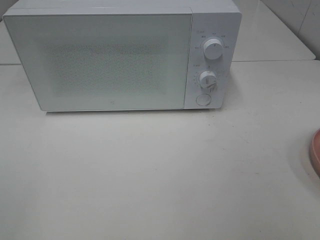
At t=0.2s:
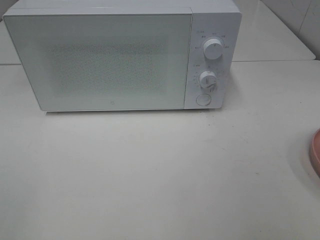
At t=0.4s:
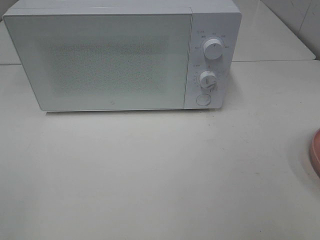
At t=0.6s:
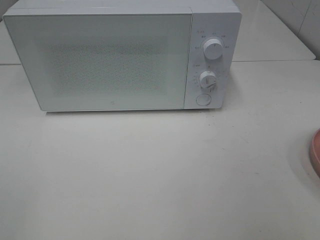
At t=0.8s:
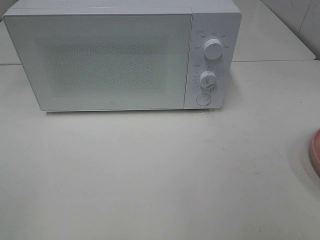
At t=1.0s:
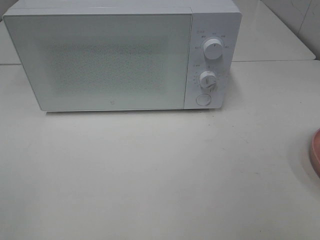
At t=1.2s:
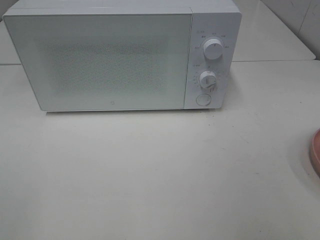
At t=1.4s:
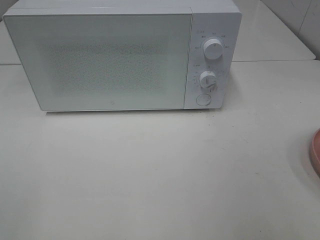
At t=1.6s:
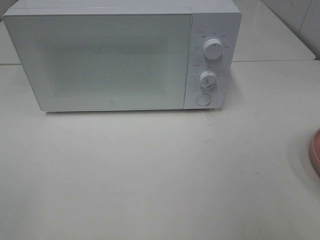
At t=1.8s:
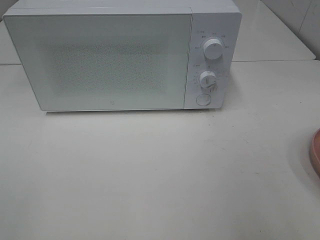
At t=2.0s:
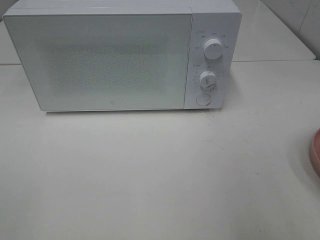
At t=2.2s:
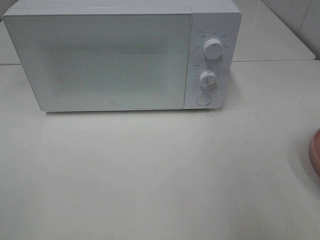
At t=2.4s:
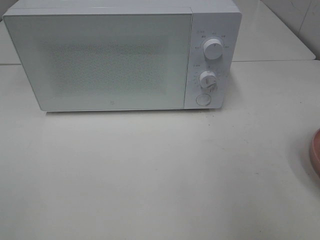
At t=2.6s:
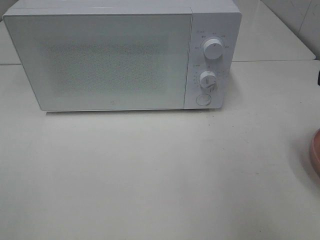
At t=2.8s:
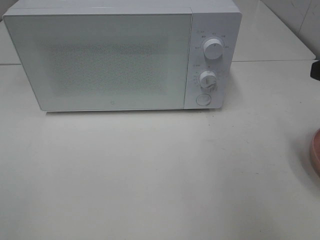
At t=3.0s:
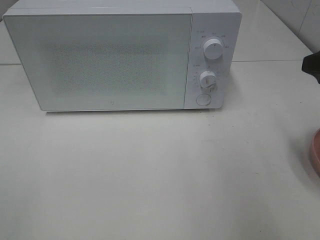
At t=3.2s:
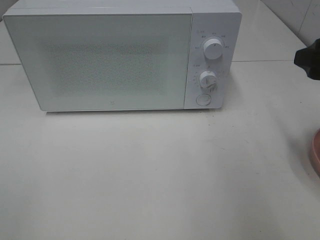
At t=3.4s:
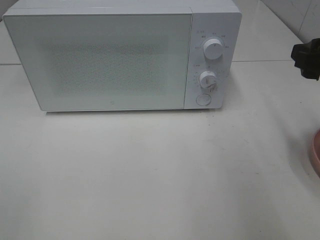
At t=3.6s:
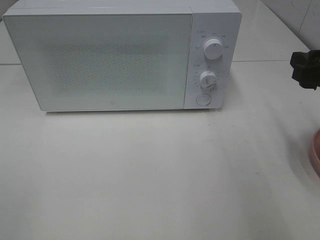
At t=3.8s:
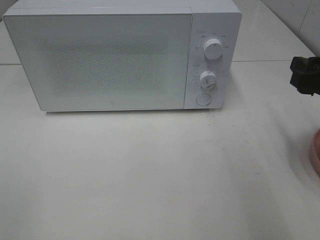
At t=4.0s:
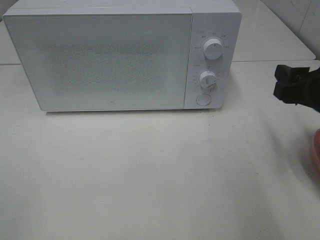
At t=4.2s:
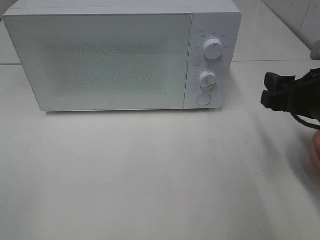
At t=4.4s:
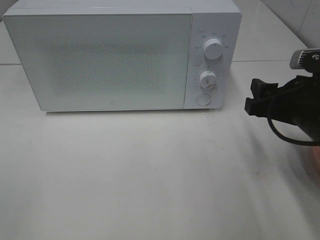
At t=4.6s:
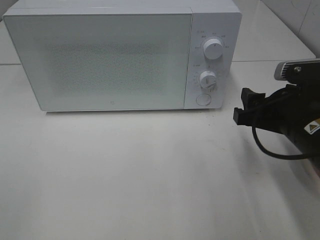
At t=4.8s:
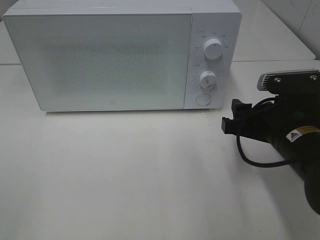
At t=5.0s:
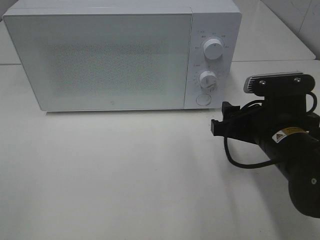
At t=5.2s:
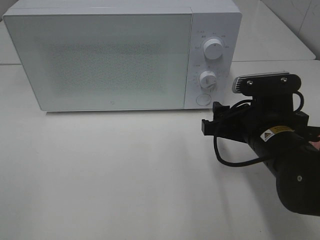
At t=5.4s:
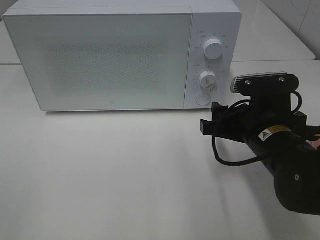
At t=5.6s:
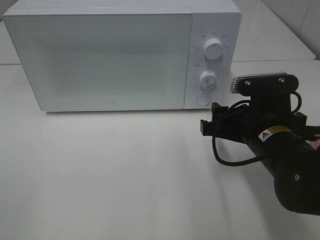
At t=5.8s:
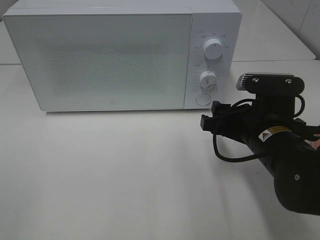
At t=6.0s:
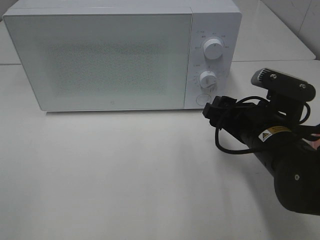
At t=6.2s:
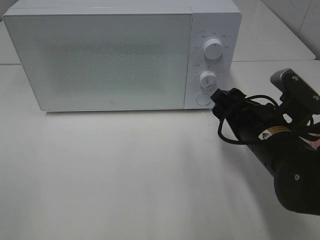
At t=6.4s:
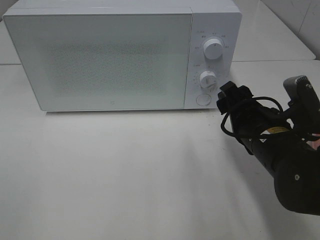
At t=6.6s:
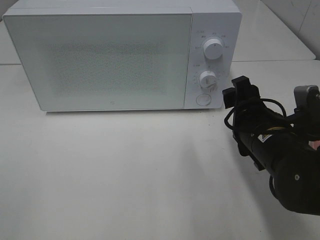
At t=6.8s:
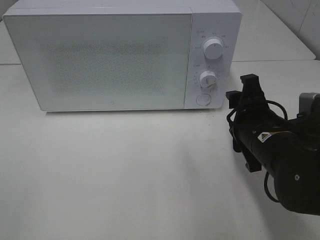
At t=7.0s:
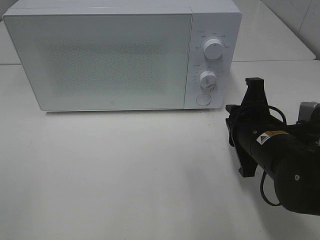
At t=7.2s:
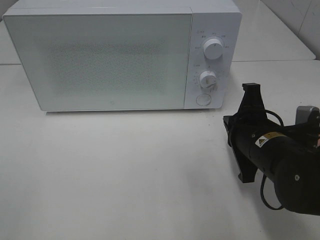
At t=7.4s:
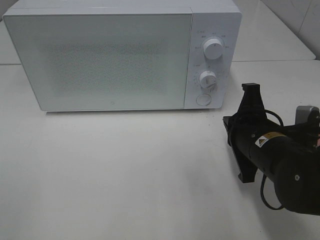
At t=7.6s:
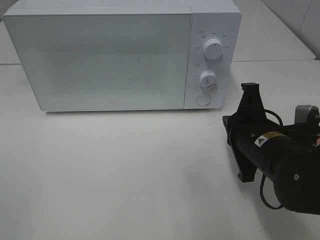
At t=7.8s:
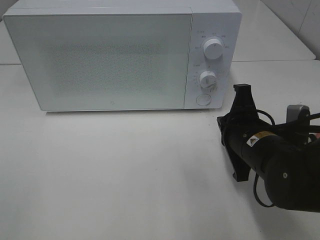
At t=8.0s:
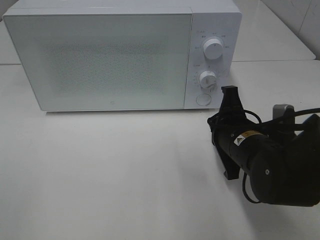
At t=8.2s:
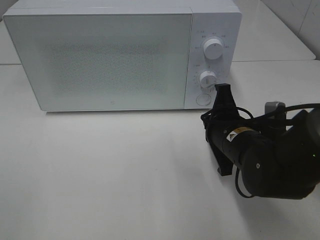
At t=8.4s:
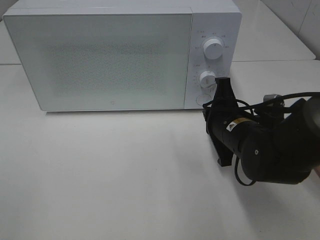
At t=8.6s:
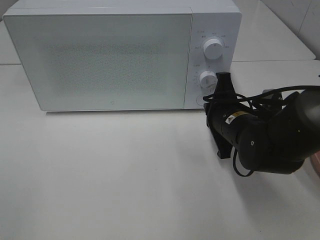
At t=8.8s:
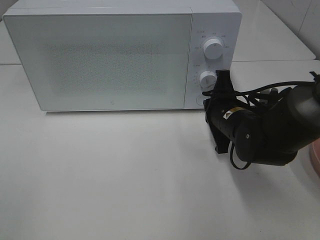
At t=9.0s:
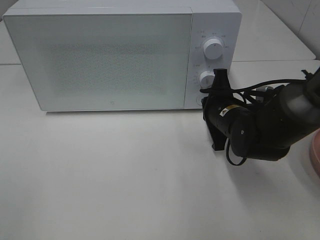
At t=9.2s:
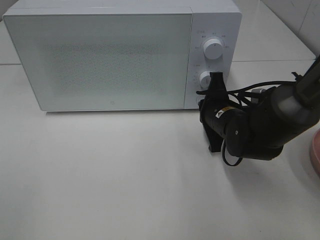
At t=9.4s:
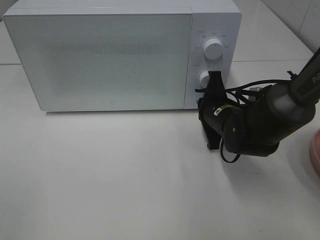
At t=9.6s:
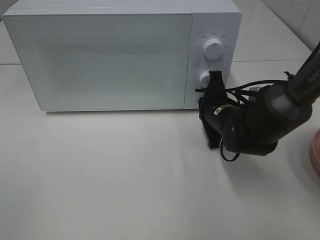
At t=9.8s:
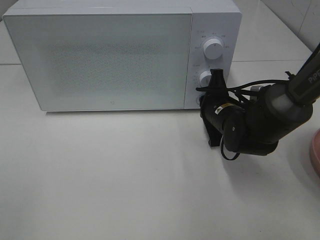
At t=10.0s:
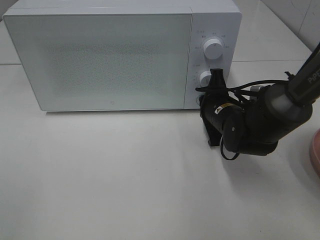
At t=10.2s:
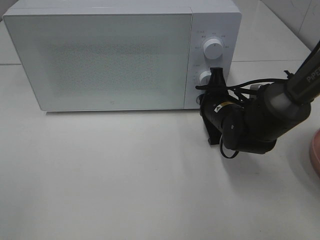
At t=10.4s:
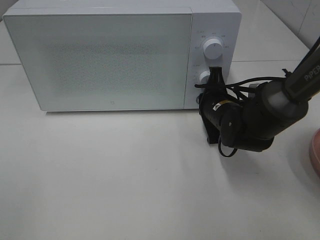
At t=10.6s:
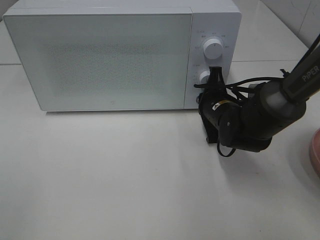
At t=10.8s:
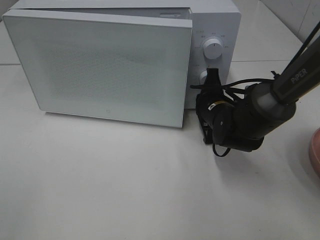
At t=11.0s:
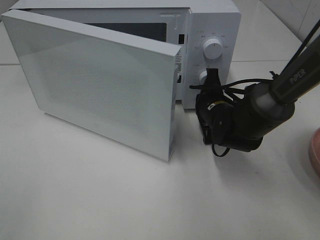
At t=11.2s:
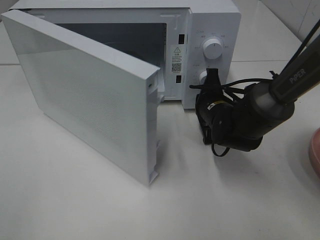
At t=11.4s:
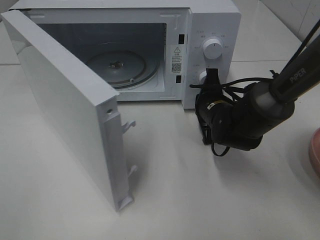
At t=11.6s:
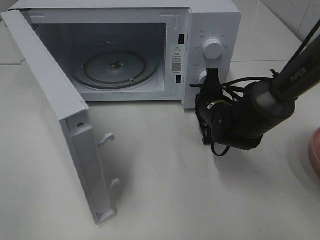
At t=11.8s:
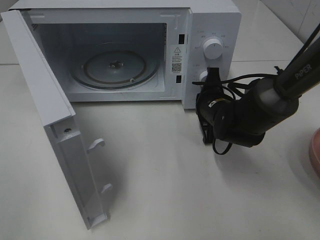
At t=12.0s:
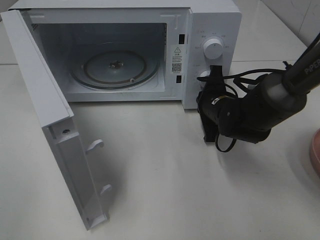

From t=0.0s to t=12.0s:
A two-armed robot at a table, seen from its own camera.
Task of the whole recording: Heat Sandwich.
From t=1.6s to t=3.0s: The right gripper goes approximately 15 cm forward.
From t=3.0s to t=4.4s: The right gripper shifts roughly 10 cm downward and to the left.
From t=4.4s to t=6.0s: The right gripper goes approximately 5 cm to the left.
From t=6.0s to t=7.6s: The right gripper closes up.
From t=7.6s to t=9.0s: The right gripper is displaced forward by about 10 cm.
From t=9.0s to t=10.4s: The grippers move only a little.

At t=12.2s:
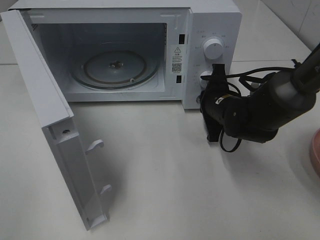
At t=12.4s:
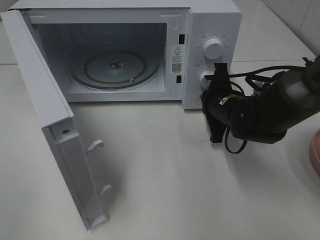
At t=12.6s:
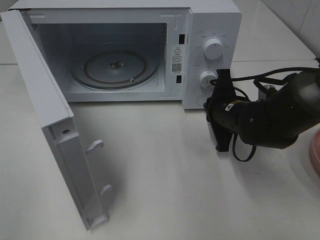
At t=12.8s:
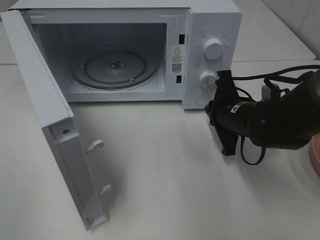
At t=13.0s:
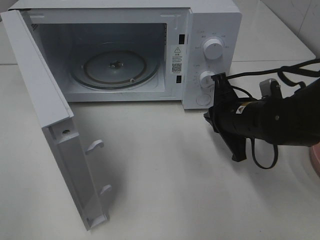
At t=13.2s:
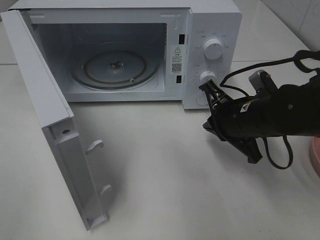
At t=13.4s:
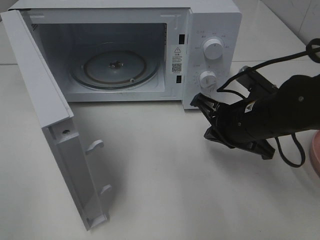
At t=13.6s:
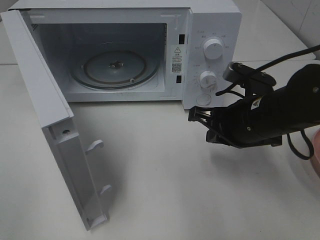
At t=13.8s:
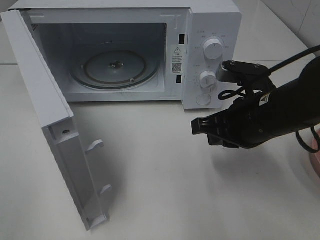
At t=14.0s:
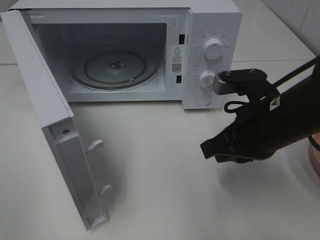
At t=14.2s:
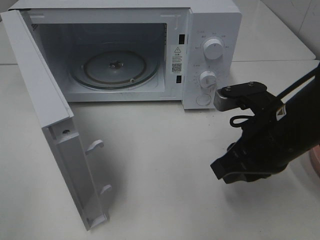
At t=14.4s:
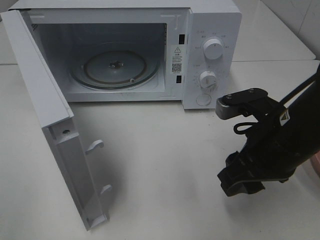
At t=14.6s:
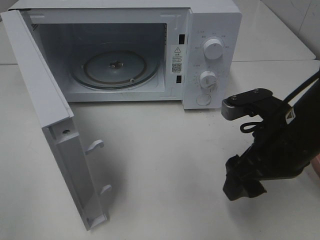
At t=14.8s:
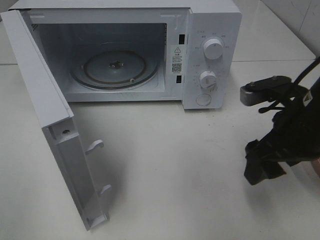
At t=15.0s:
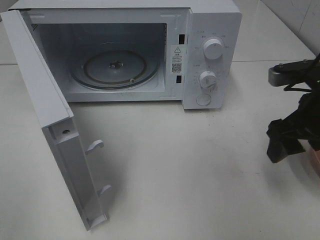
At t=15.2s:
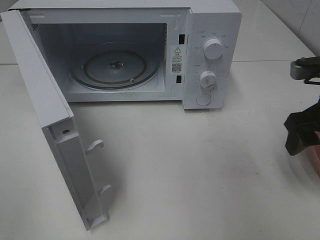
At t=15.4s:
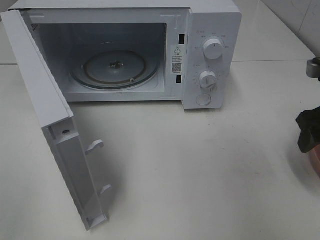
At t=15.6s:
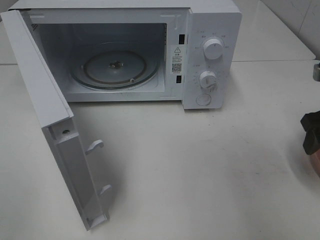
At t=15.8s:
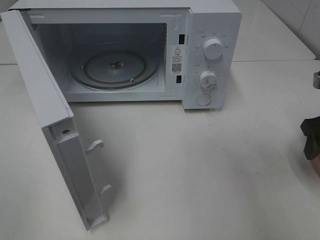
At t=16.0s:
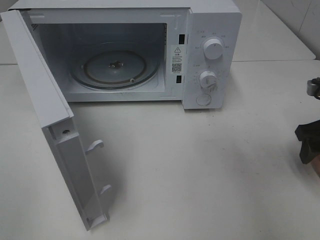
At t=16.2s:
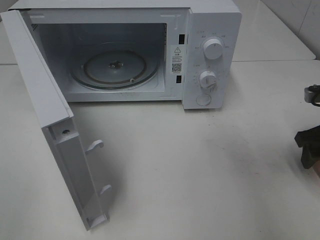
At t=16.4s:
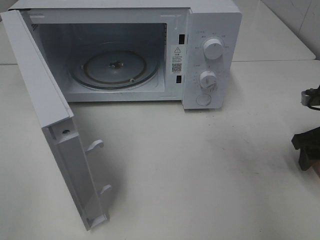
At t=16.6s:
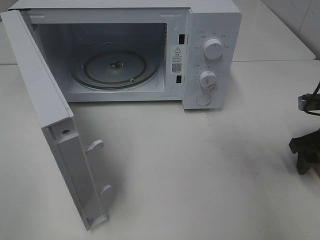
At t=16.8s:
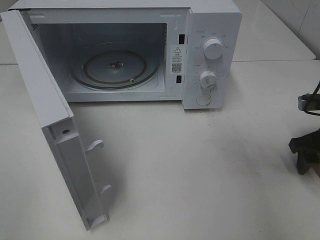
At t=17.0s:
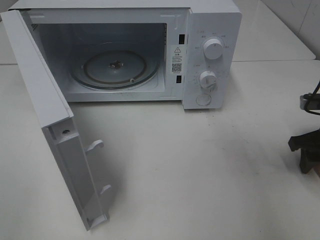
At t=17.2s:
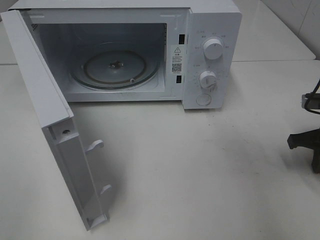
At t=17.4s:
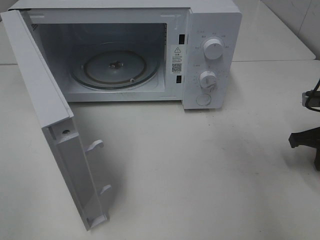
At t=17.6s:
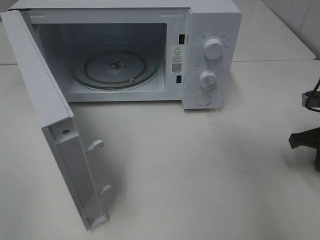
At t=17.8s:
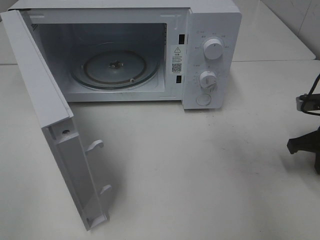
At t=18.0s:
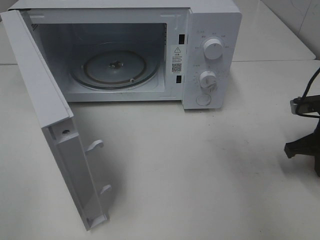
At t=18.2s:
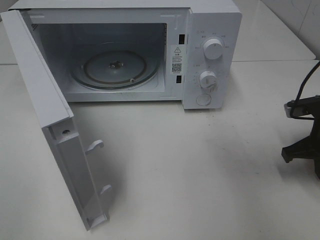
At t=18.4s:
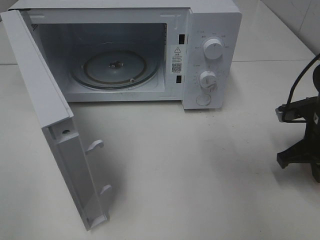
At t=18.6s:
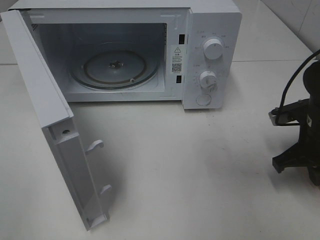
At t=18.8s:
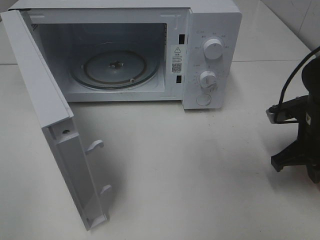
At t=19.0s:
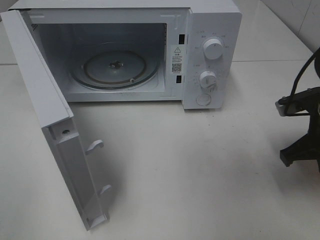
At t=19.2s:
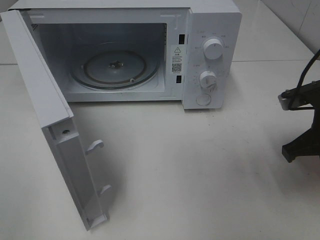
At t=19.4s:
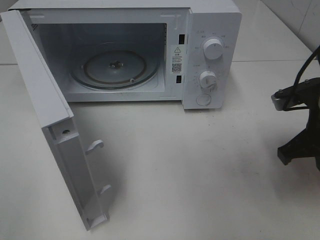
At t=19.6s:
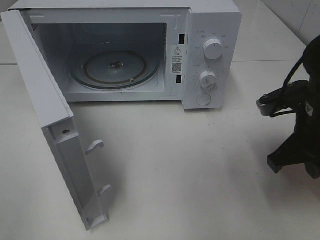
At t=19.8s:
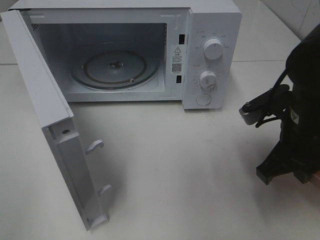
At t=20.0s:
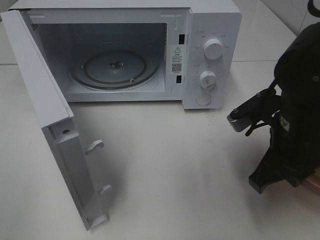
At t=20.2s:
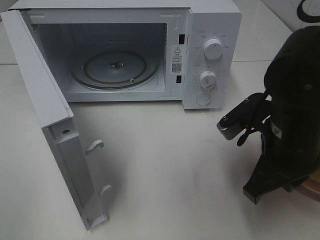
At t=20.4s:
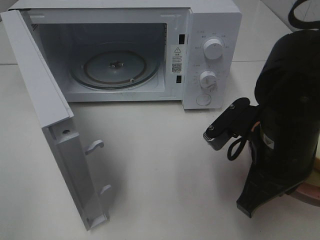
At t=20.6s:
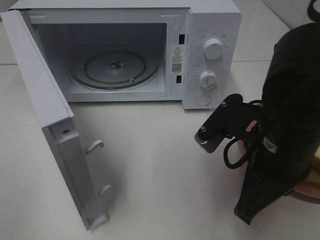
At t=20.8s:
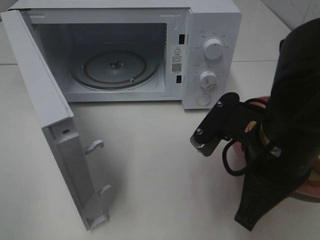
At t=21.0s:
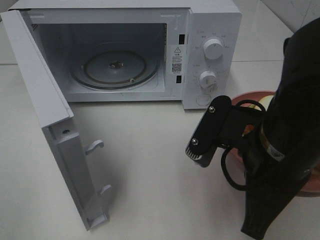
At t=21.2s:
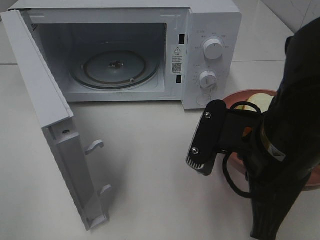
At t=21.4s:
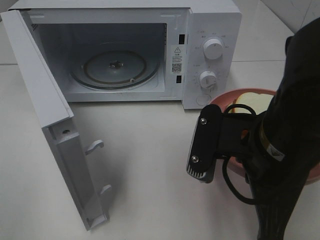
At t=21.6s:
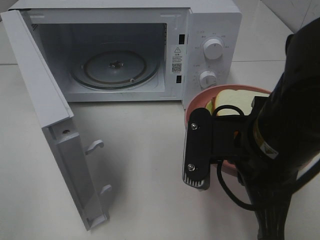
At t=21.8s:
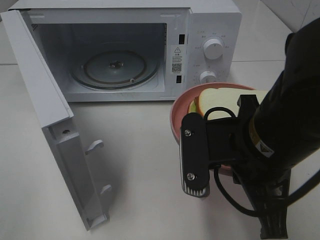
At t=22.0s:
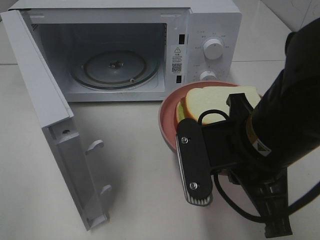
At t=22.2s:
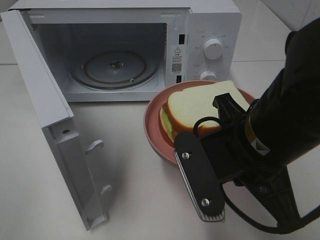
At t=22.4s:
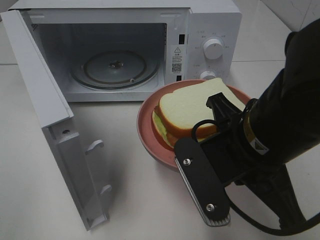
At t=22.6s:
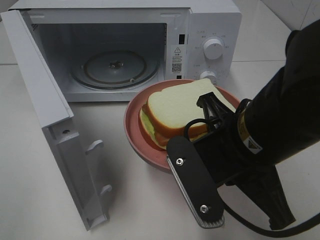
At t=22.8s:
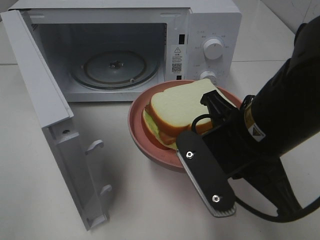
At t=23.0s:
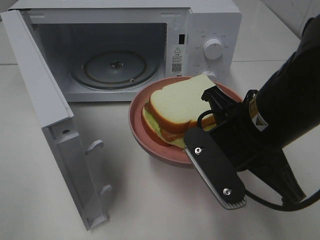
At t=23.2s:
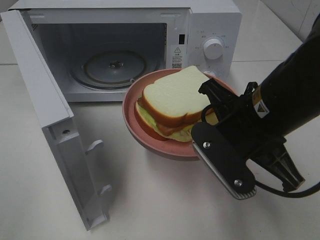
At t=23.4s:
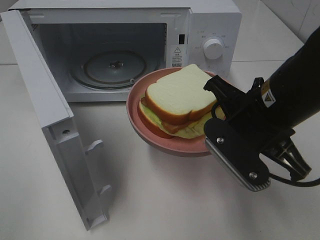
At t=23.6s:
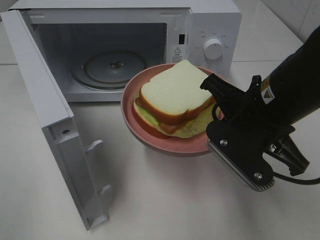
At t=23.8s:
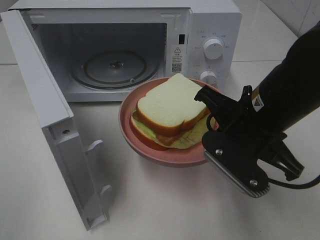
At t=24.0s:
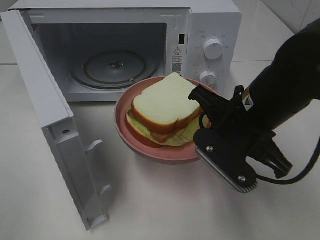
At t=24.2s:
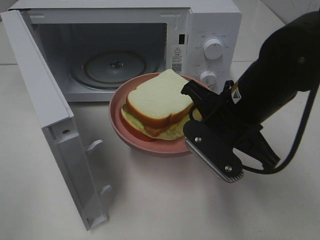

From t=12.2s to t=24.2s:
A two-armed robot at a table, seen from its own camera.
Task of the whole recording: Heat Sandwich.
Step, from t=12.6s to t=18.4s: Right hand: grab the plate with the sandwich.
From t=12.2s to t=13.8s: The right gripper goes some 15 cm backward and upward.
From t=13.8s to t=15.2s: The right gripper goes about 10 cm to the right, and opens.
From t=15.2s to t=16.6s: The right gripper travels downward and to the right by roughly 10 cm.
From t=16.6s to t=18.2s: The right gripper closes its fingers.
From t=18.2s to t=19.8s: The right gripper moves to the left, upward and backward, about 15 cm.
From t=19.8s to t=21.2s: The right gripper travels to the left and backward by approximately 10 cm.
From t=22.6s to t=24.2s: The right gripper moves forward, about 10 cm.
